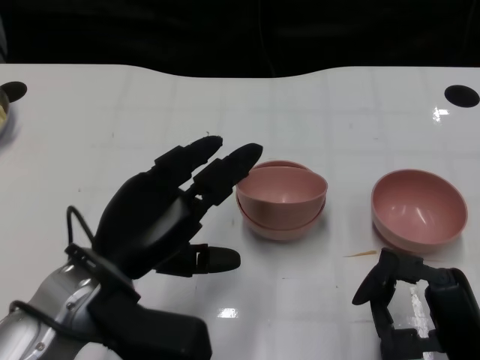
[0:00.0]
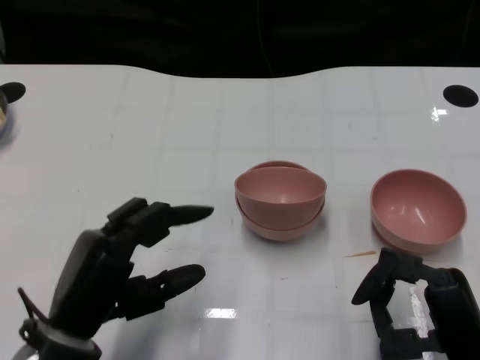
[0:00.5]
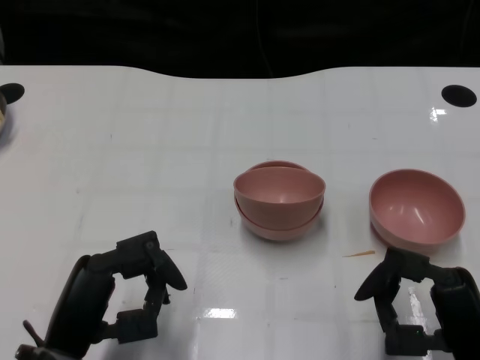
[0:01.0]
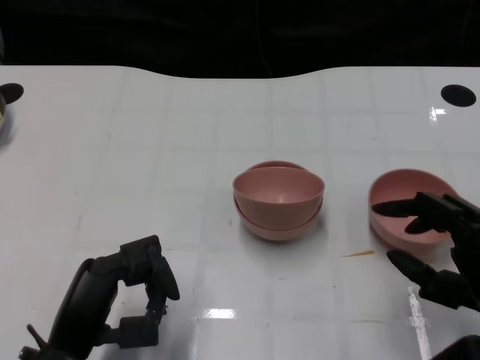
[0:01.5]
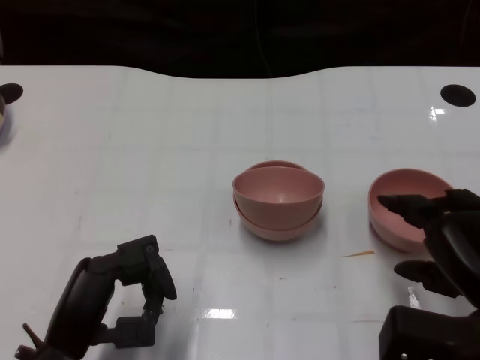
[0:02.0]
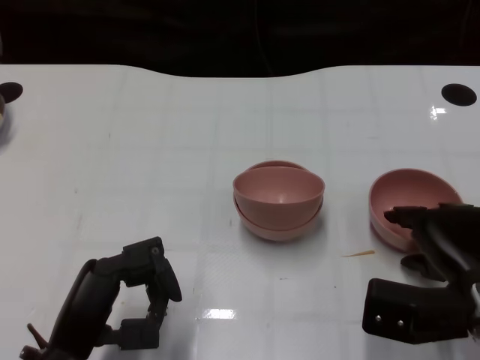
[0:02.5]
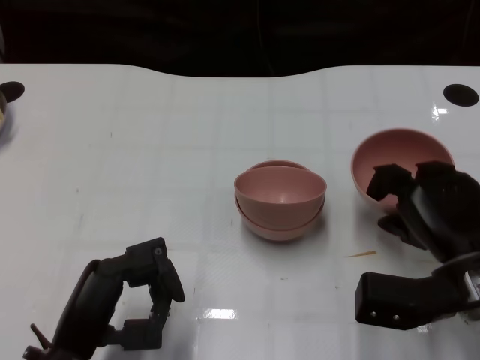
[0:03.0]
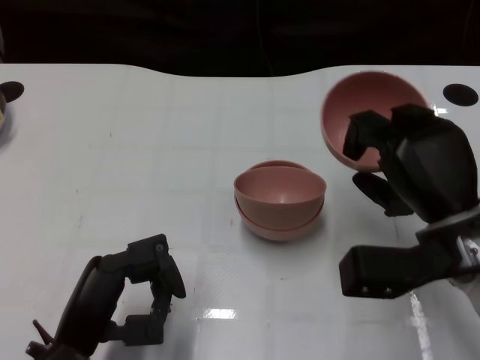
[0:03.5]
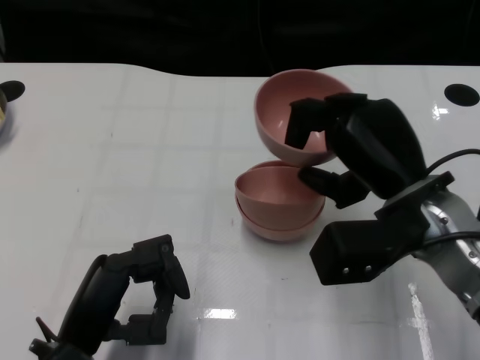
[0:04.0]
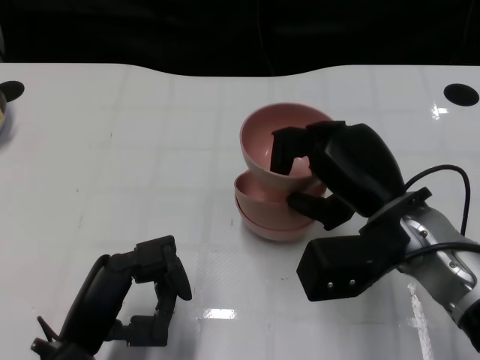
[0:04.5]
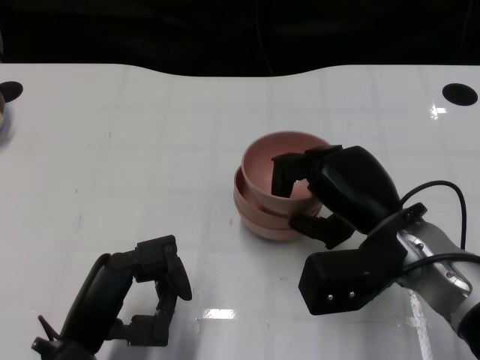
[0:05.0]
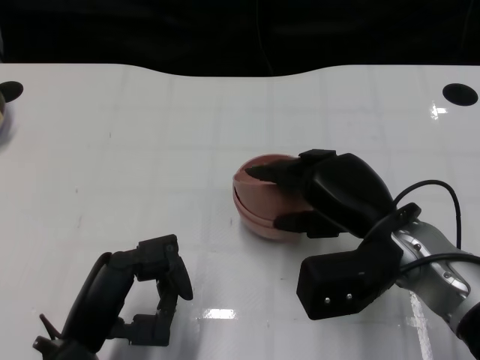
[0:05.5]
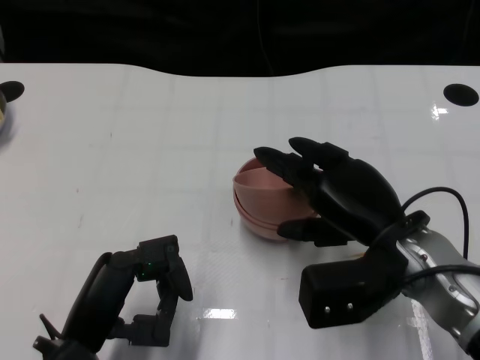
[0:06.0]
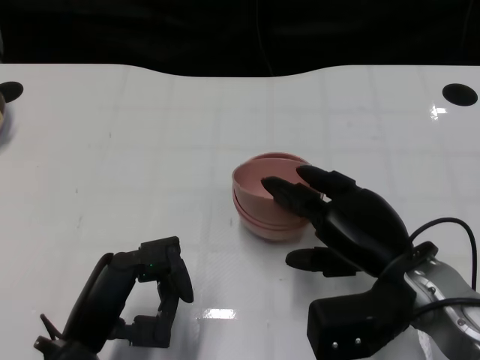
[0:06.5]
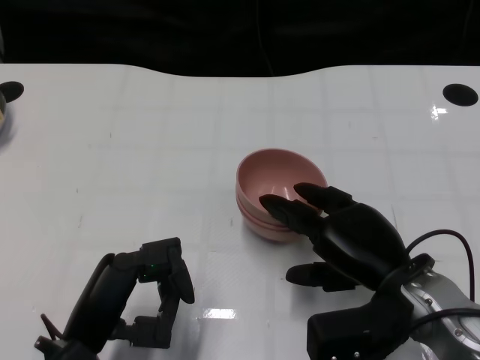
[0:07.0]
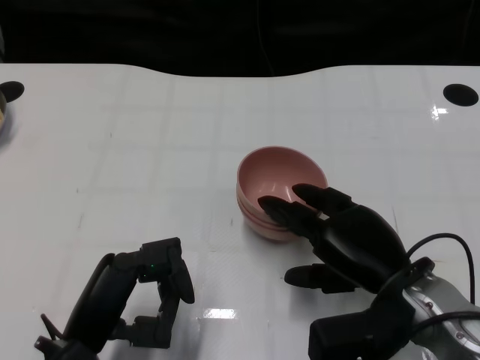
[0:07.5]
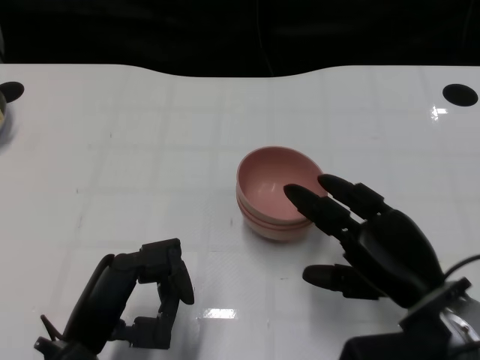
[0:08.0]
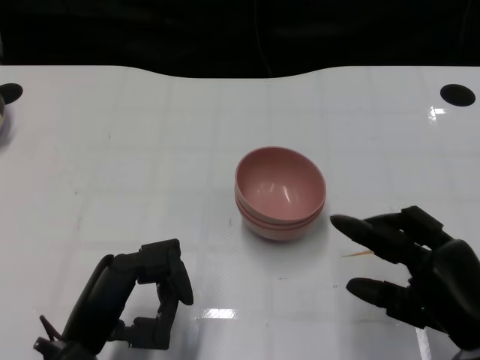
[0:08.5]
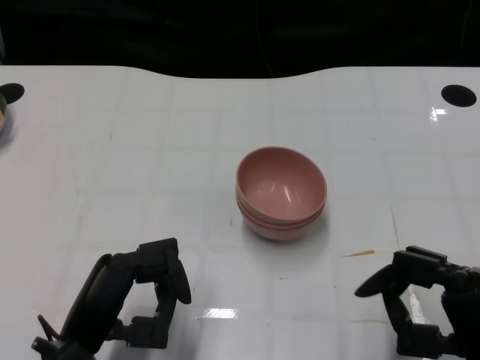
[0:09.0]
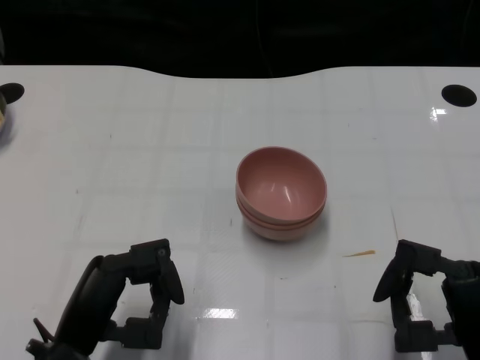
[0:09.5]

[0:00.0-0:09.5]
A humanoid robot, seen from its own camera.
Task of the whole recording: Pick up the bowl on one side of the table and place it on top of the middle bowl, then pick up the bowl on the other side of the table and place it on top of the middle bowls.
Step, 0:00.0 to 0:02.5: Grasp the bowl on the right with the right gripper.
Step, 0:03.0 to 0:07.5: Place the bowl on the right onto the bowl in the middle with right gripper.
0:00.0 to 0:02.0: The right hand goes approximately 5 cm upward. Meanwhile the left hand is displaced downward and backward by approximately 10 cm.
0:02.0 to 0:04.0: The right hand heads forward and to the left, covering roughly 10 cm.
0:05.5 to 0:07.5: The hands stay close to where they were, moving slightly.
0:07.5 to 0:09.5: The right hand is displaced backward and to the right by about 10 cm.

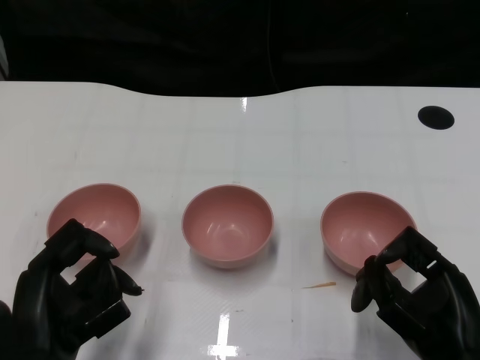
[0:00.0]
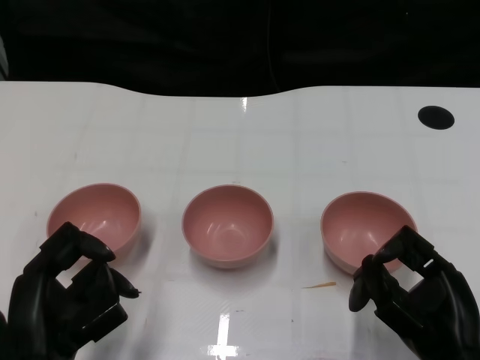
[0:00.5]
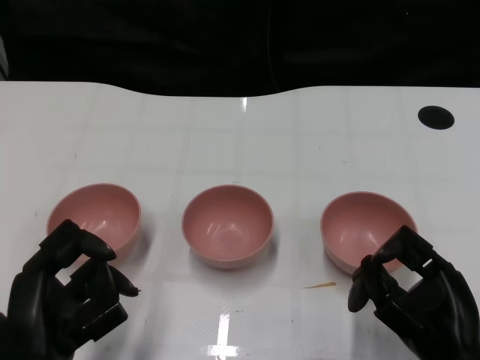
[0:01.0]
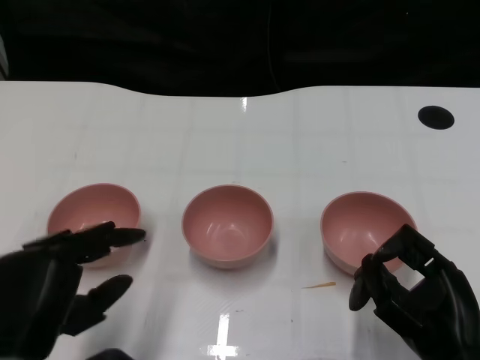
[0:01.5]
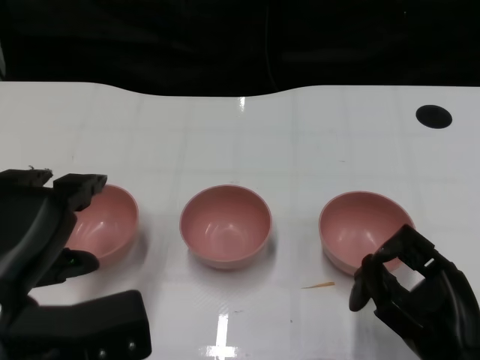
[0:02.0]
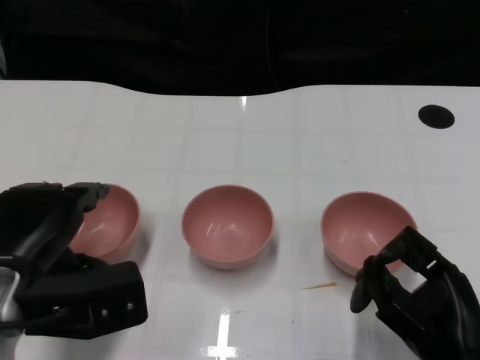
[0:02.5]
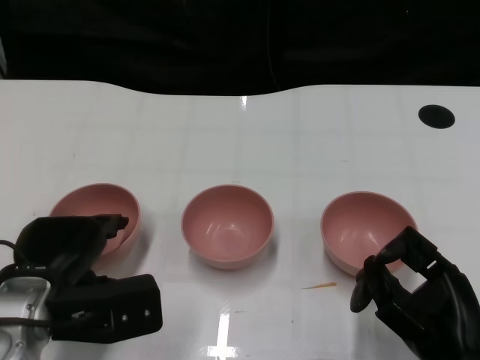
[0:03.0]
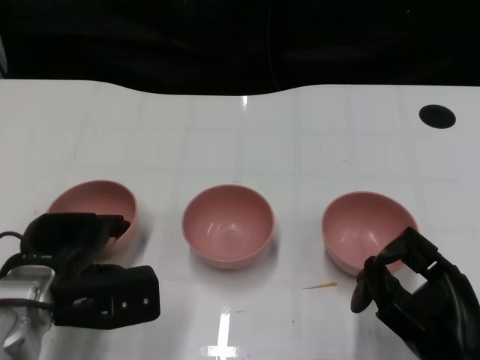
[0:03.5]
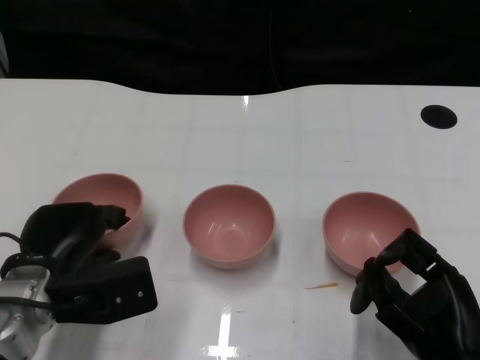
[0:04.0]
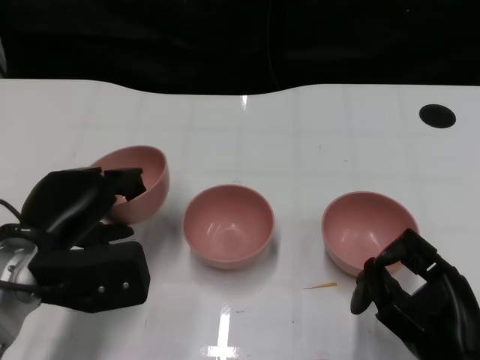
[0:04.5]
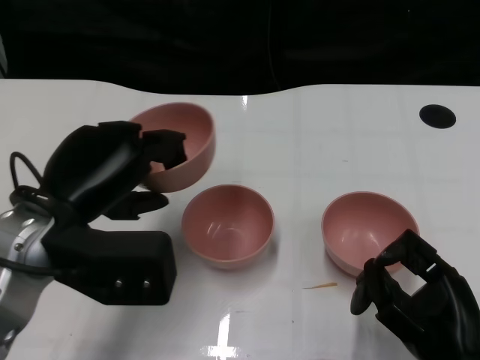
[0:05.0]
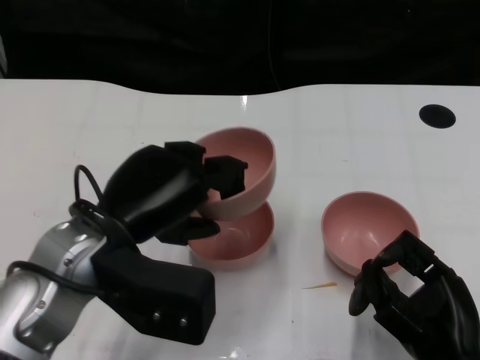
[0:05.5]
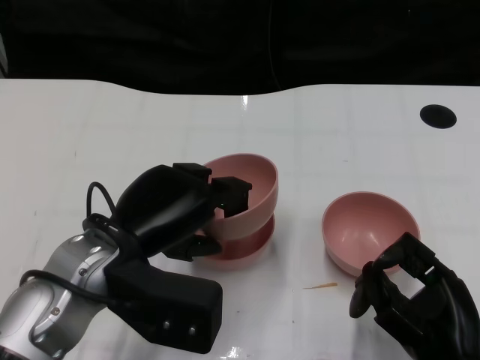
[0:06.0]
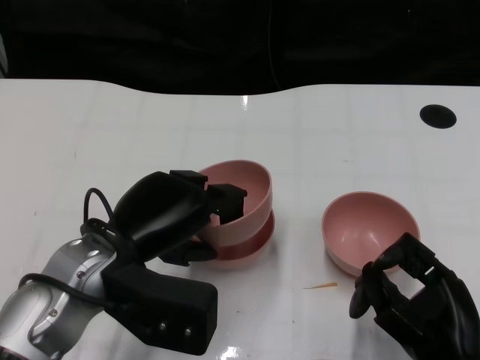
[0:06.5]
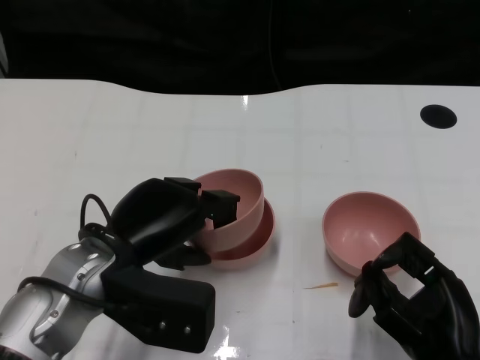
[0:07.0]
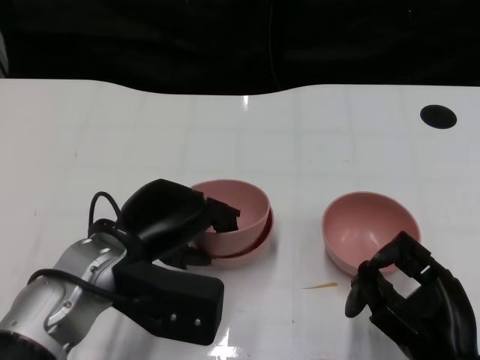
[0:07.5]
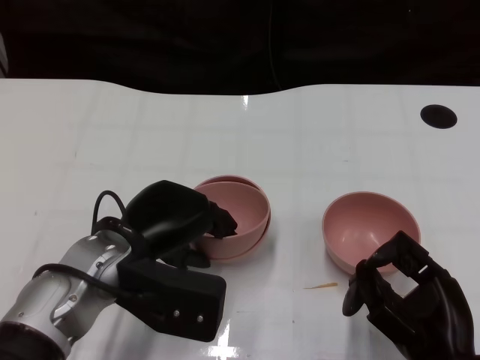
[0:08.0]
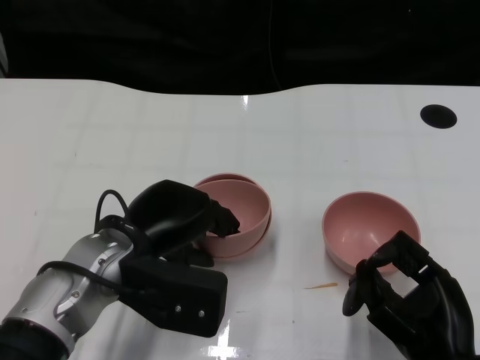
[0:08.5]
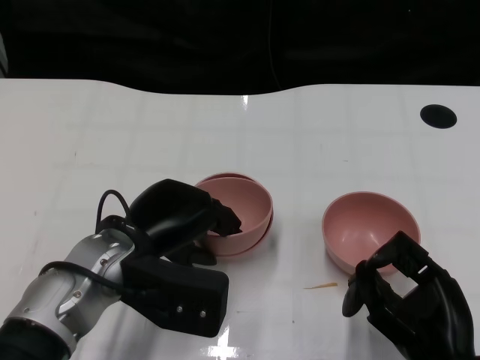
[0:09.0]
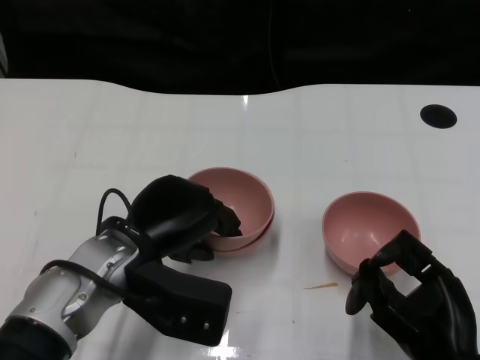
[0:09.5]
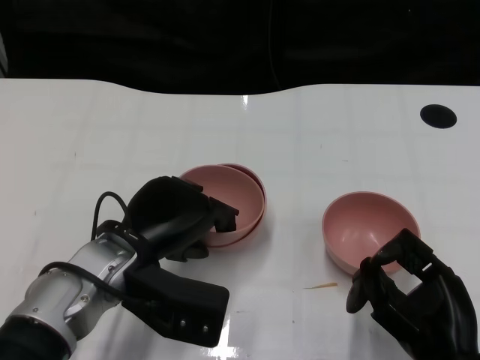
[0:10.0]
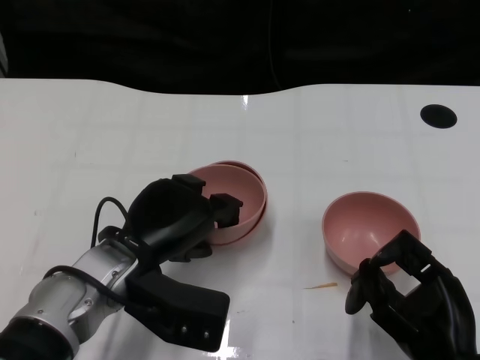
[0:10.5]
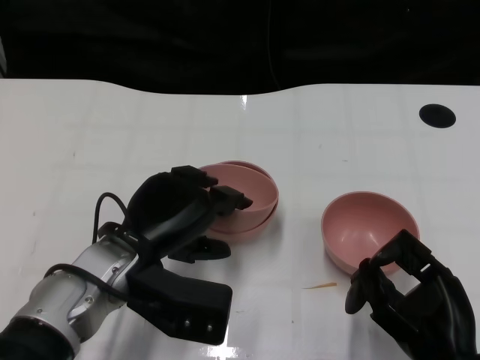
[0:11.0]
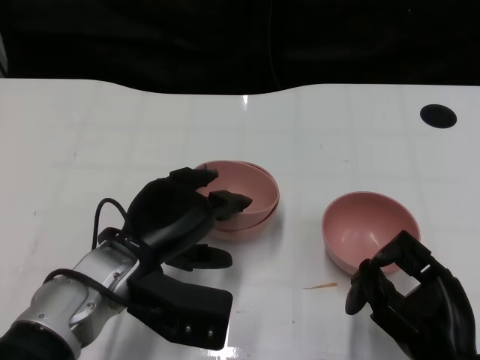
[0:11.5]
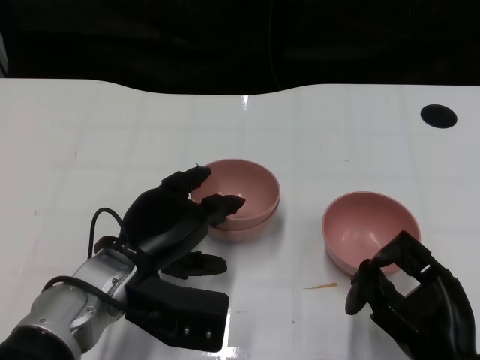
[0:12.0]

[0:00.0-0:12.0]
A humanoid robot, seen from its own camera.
Task of the whole recording: Pick up the bowl on one side of the table and place it on top of the middle bowl, then pick up the bowl on the other side of the table and place it on top of the middle bowls.
Step, 0:01.0 to 0:04.0: Grasp the bowl on the left with the left gripper.
0:02.0 to 0:04.0: The left hand travels downward and forward by about 15 cm.
0:04.0 to 0:06.0: The left hand travels upward and to the right by some 10 cm.
0:06.0 to 0:10.0: The hands stay close to where they were, moving slightly.
0:10.0 to 0:12.0: There are only small adjustments of the hands.

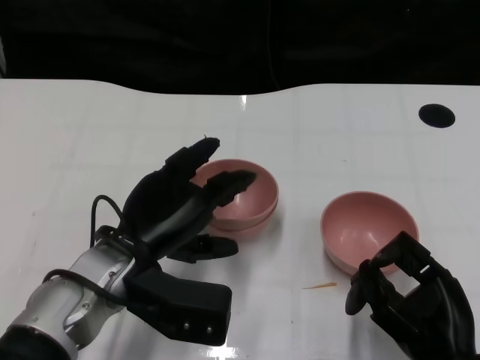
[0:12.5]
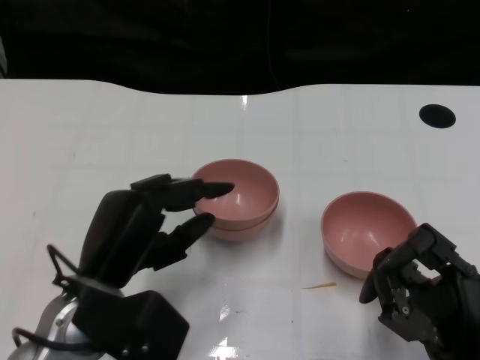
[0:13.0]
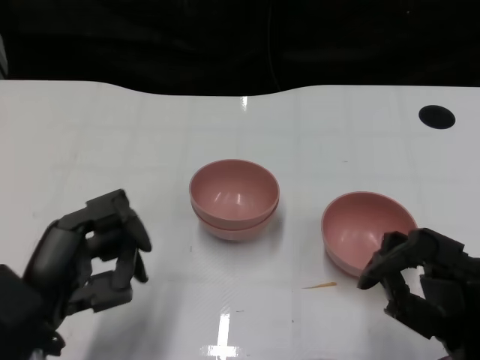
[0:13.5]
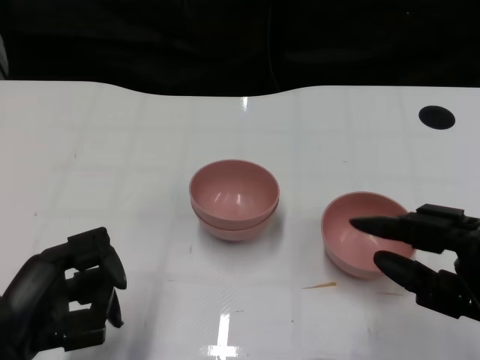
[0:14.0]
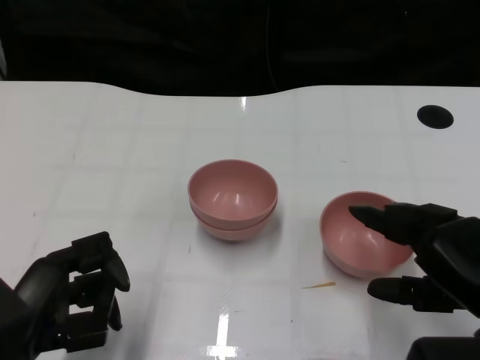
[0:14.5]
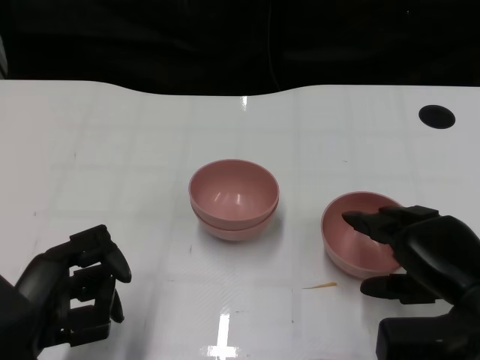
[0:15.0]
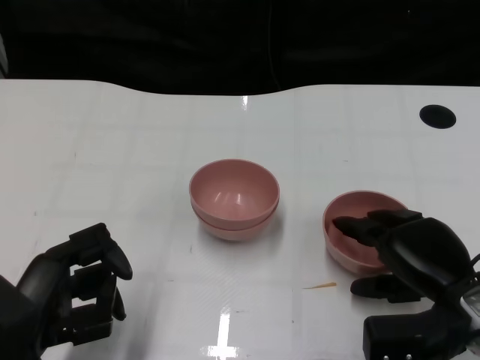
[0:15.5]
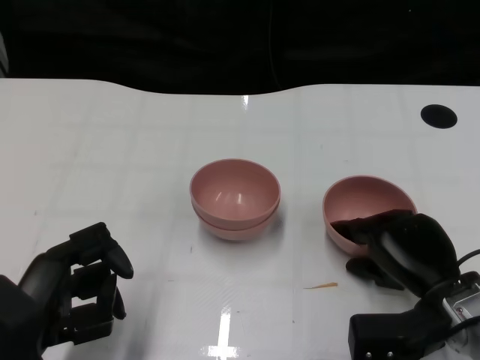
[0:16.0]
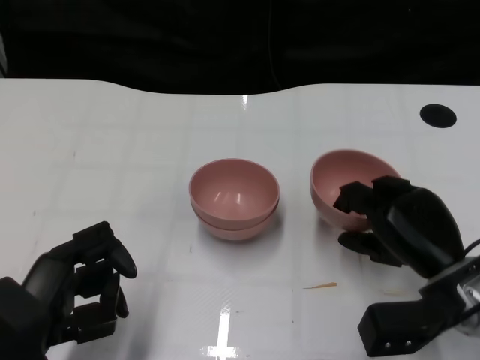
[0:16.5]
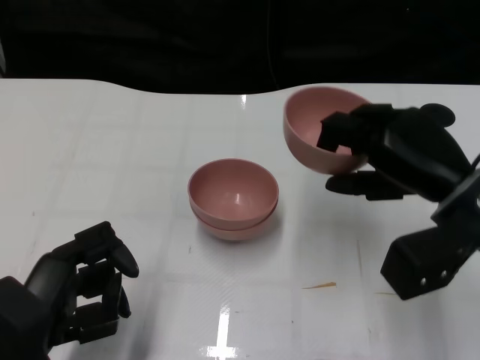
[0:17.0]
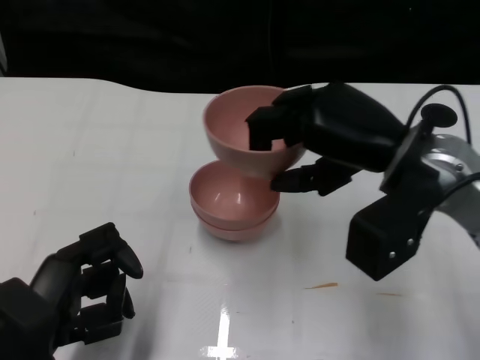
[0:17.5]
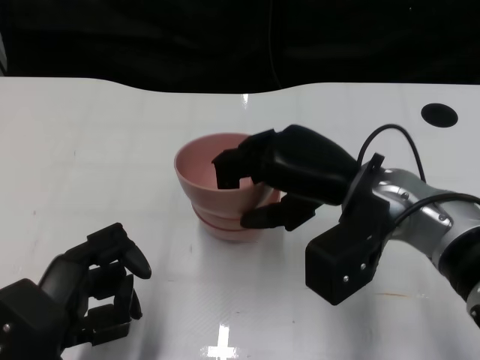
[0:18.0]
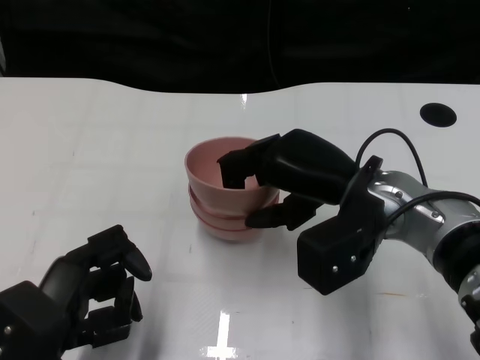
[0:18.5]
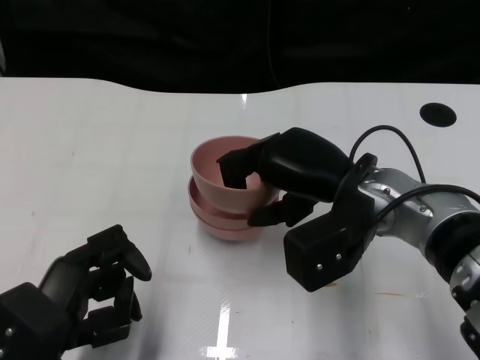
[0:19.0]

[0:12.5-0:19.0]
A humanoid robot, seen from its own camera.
Task of the whole recording: Pick up the bowl on one side of the table and place it on top of the middle bowl, then pick up the bowl on the other side of the table and place it on top of the middle bowls.
Step, 0:13.0 to 0:16.0: Grasp the bowl on the right with the right gripper.
0:12.5 to 0:14.5: The left hand travels to the left and backward by roughly 15 cm. Meanwhile the right hand shifts some 5 cm upward.
0:14.5 to 0:17.0: The right hand moves forward, some 10 cm, and reaches roughly 5 cm downward, then returns.
0:17.0 to 0:19.0: The right hand moves to the left, about 10 cm.
